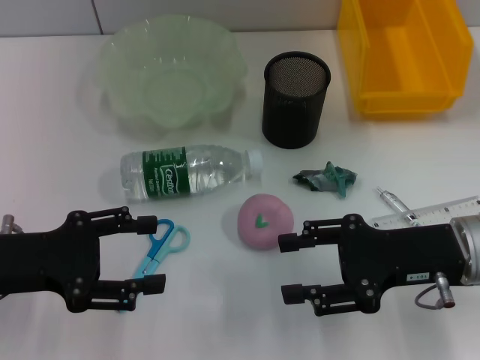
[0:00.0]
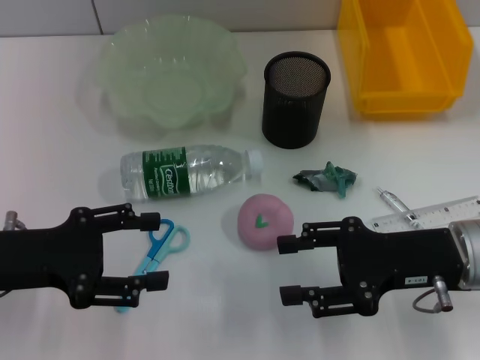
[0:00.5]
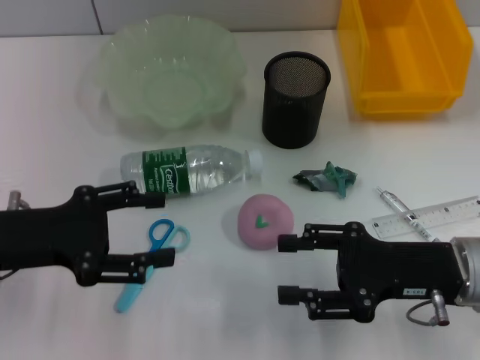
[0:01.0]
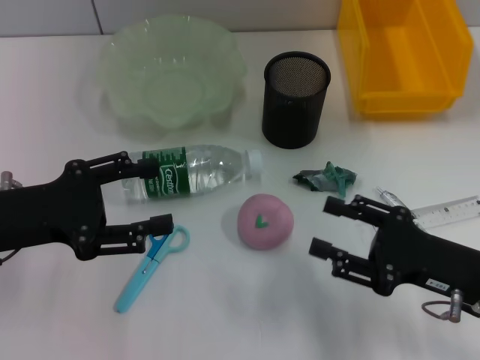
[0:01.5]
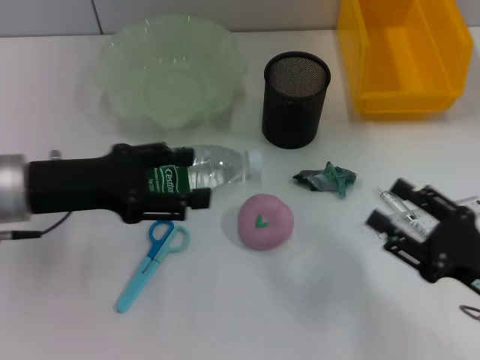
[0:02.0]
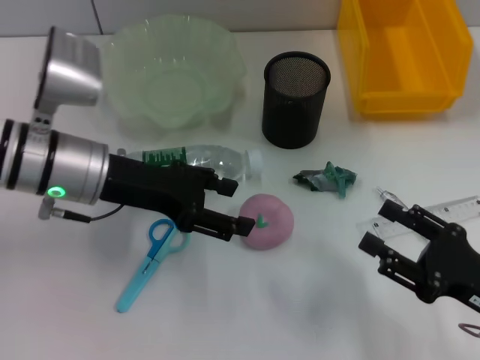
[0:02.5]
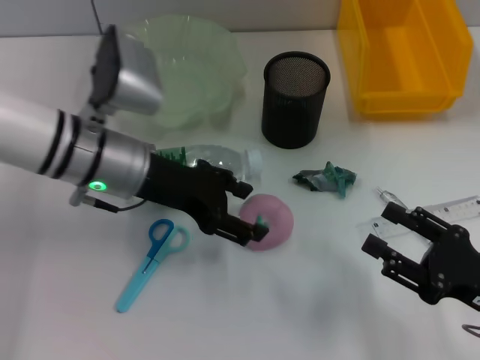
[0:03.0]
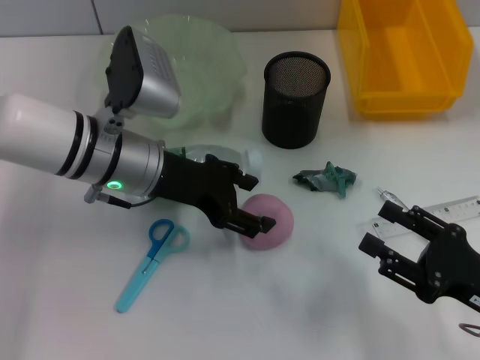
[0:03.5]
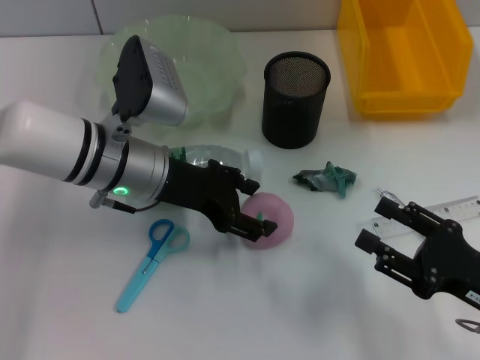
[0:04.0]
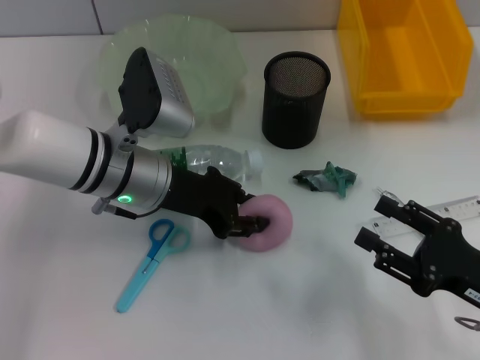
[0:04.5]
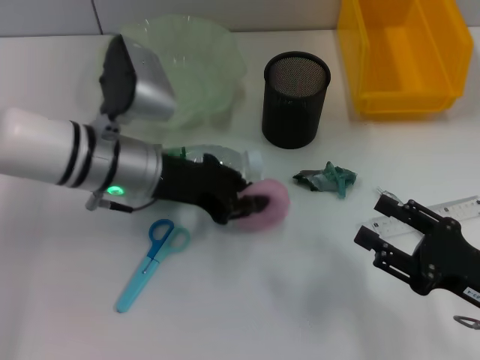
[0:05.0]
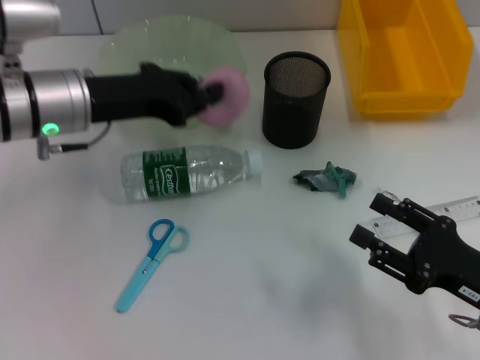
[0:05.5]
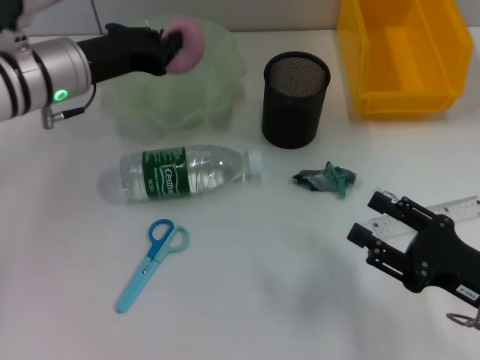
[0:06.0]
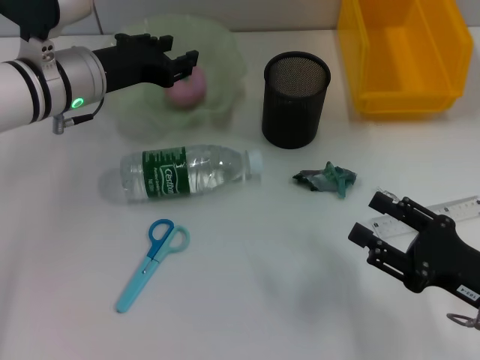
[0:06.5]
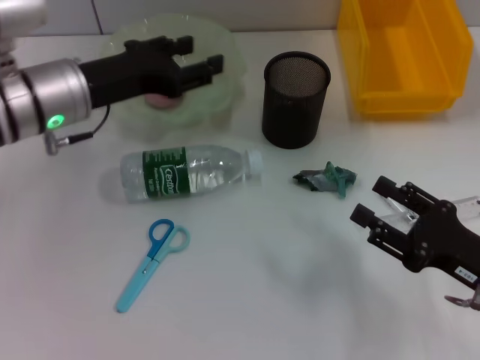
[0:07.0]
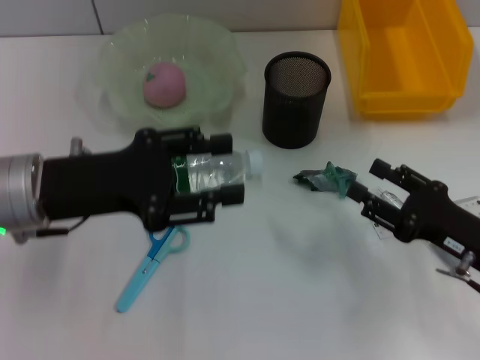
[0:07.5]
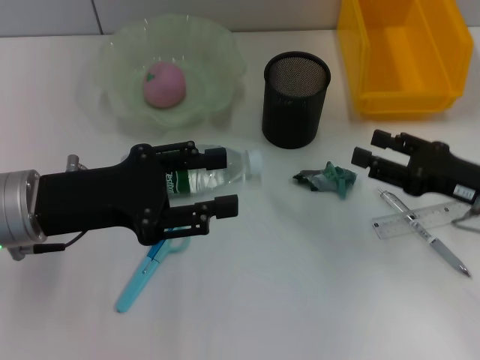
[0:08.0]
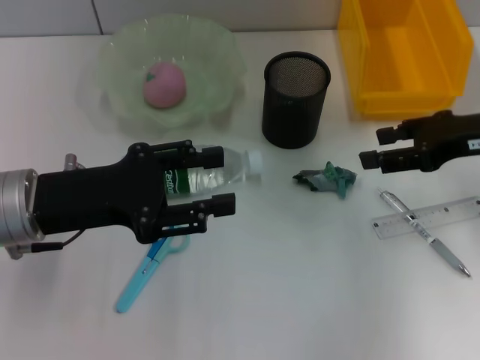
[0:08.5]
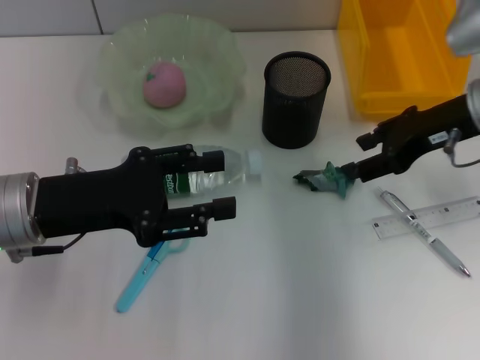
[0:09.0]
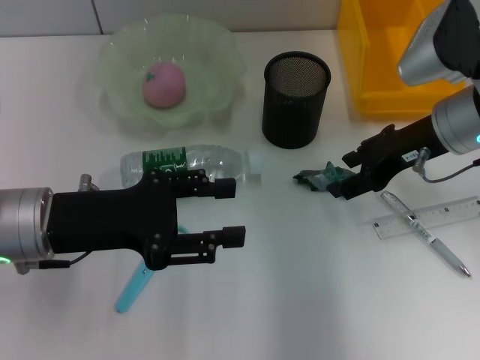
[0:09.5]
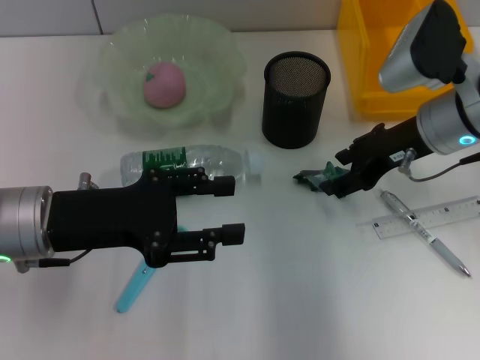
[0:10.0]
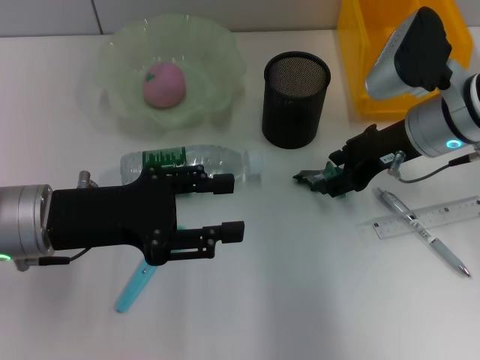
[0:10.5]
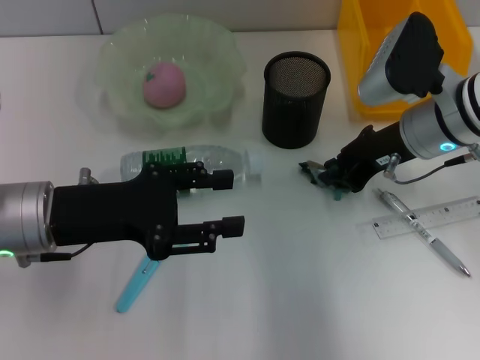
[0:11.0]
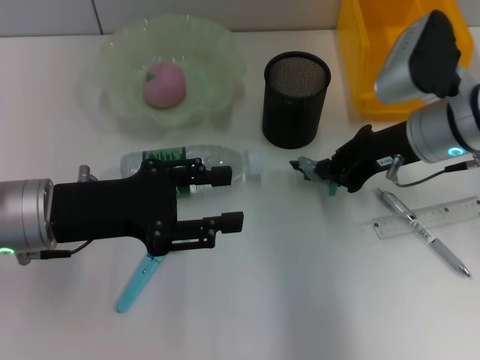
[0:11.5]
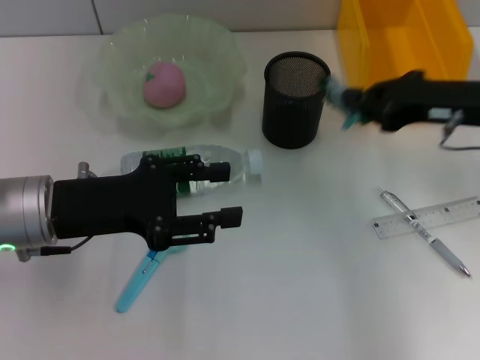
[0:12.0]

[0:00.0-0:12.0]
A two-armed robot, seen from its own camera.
Step, 0:00.0 to 0:04.5: Grab the peach with the left hand.
Step, 0:05.0 to 0:06.5: Place the peach into the fruit bowl with the left hand.
Step, 0:07.0 to 0:11.0: Grab the plastic with the right hand.
0:00.0 to 0:02.0: The right gripper moves backward, downward and to the right, some 10 cm, while the left gripper heads forward, covering about 5 cm.
0:02.0 to 0:04.0: The left gripper travels to the right and forward by roughly 15 cm.
0:04.0 to 0:06.0: The left gripper travels to the left and forward by about 10 cm, and closes up.
0:06.0 to 0:08.0: The left gripper travels backward by roughly 15 cm, and opens its fingers; the right gripper is displaced forward by roughly 10 cm.
0:08.0 to 0:10.0: The right gripper travels forward, to the left and upward by about 15 cm.
0:10.0 to 0:12.0: The right gripper ends up approximately 5 cm from where it was, and closes.

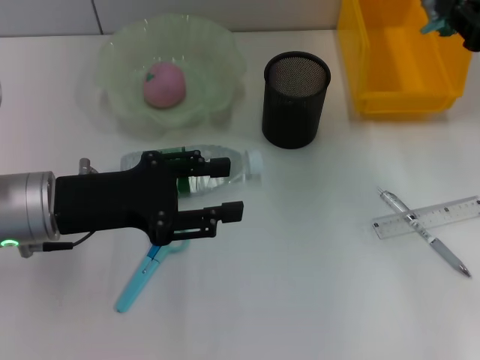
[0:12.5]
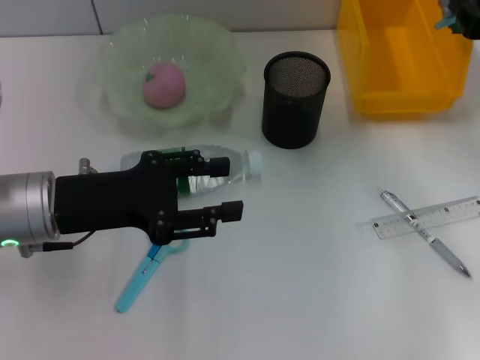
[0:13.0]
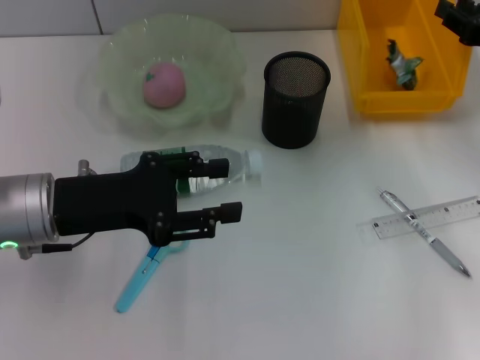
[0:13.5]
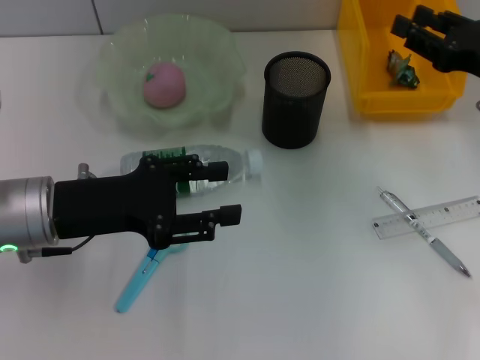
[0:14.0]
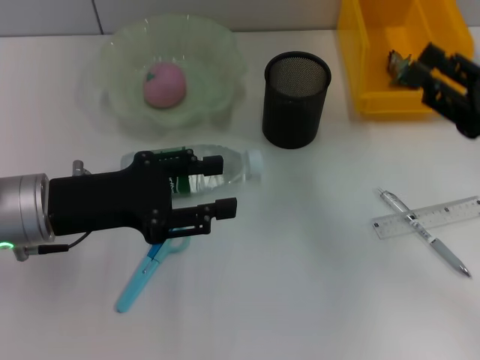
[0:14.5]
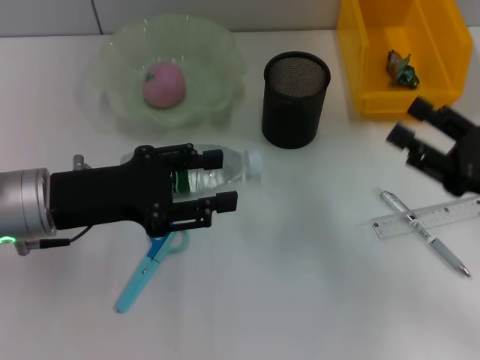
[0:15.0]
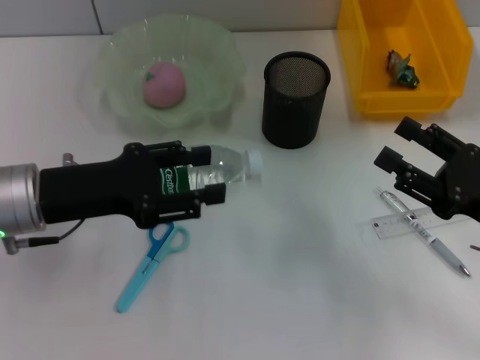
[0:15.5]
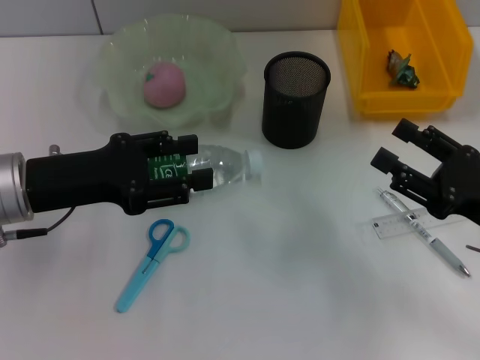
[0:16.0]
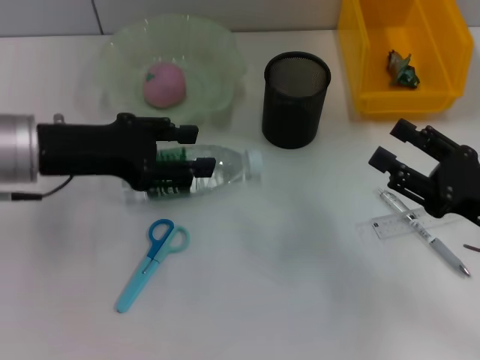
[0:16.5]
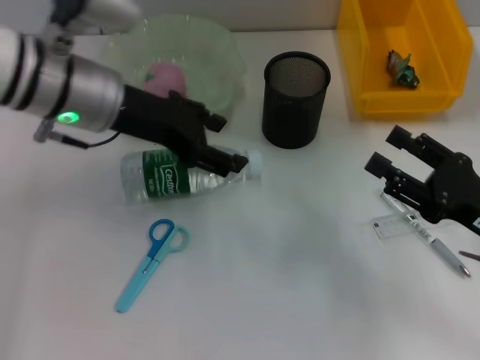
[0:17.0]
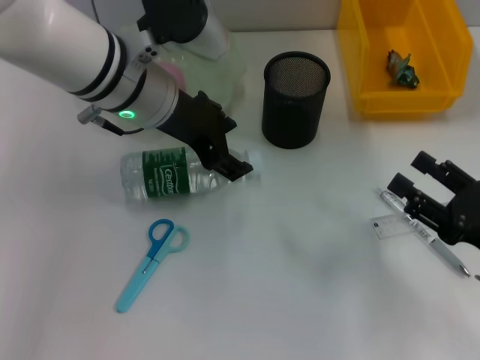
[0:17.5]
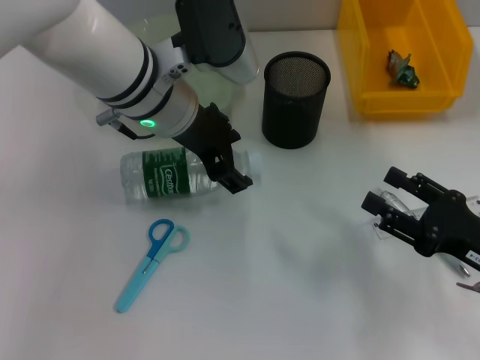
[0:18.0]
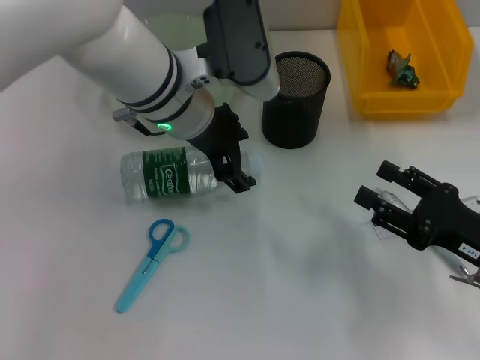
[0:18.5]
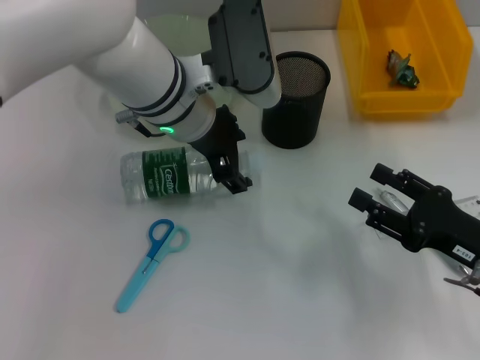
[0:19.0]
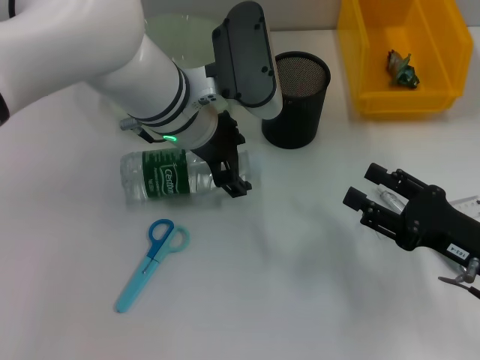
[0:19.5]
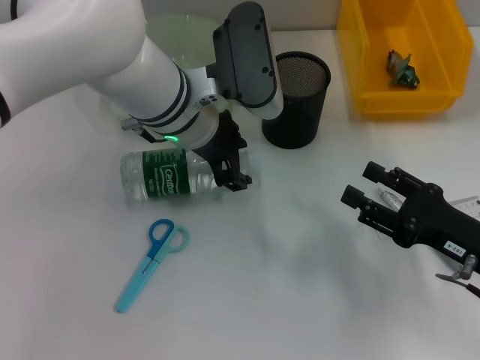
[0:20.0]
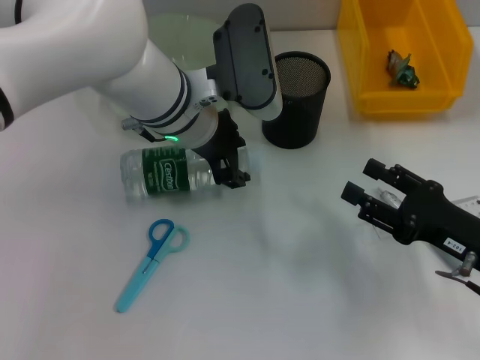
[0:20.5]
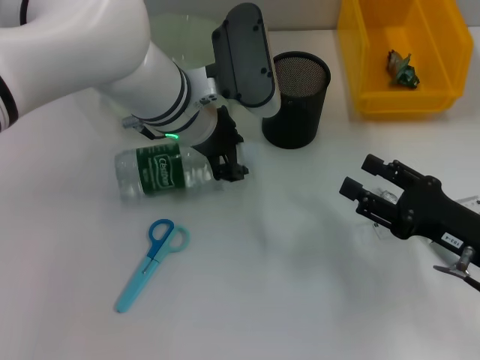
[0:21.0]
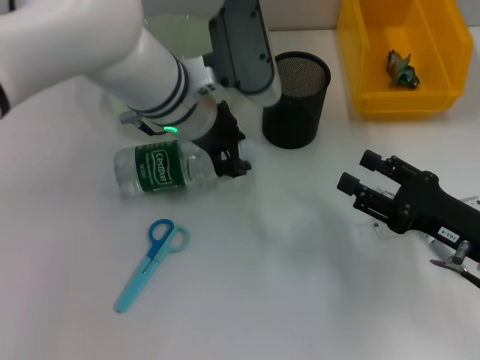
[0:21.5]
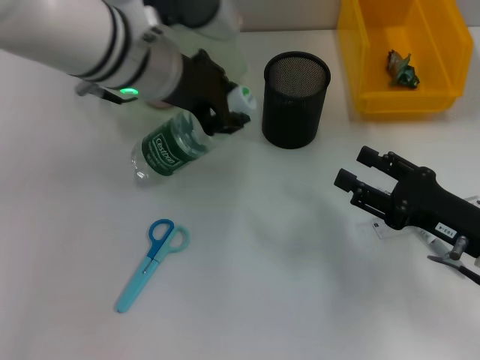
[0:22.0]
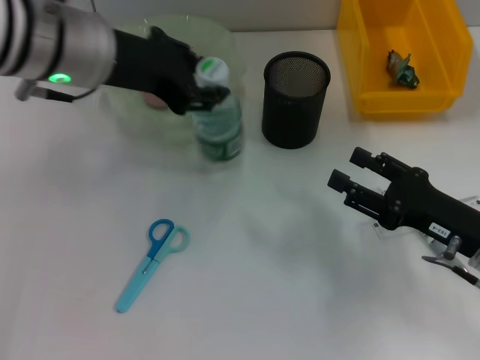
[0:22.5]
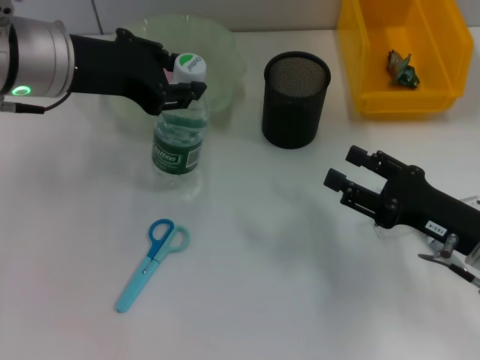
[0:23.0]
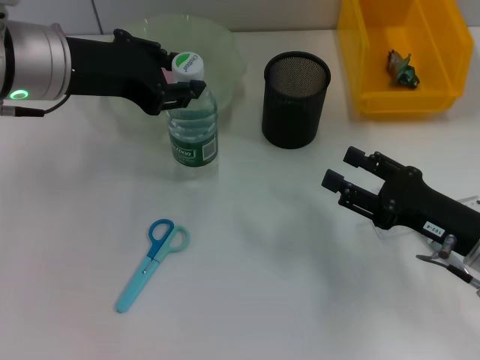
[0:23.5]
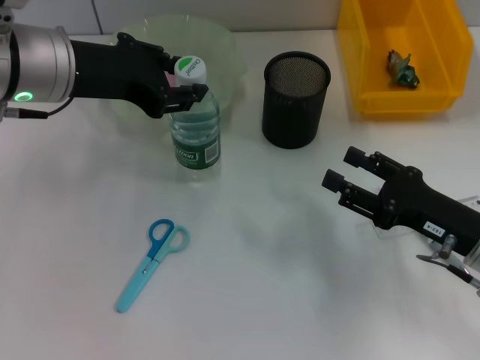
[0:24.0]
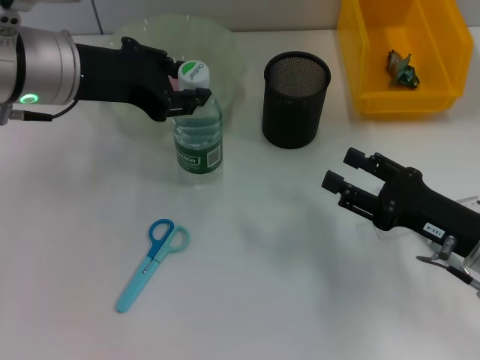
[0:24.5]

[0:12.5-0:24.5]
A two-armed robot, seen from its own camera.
Step, 0:14.0 to 0:21.0: Grab the water bottle with the left hand.
0:12.5 to 0:14.5: The right gripper goes approximately 10 cm backward and downward, and opens up.
0:14.5 to 0:16.5: The left gripper shifts by approximately 5 cm; the right gripper changes place by roughly 5 cm.
0:16.5 to 0:18.5: The left gripper is displaced to the right by approximately 15 cm.
0:18.5 to 0:20.5: The grippers move only a little.
0:20.5 to 0:22.5: The left gripper is displaced upward and to the left by about 10 cm.
0:22.5 to 0:24.5: The grippers make only small movements.

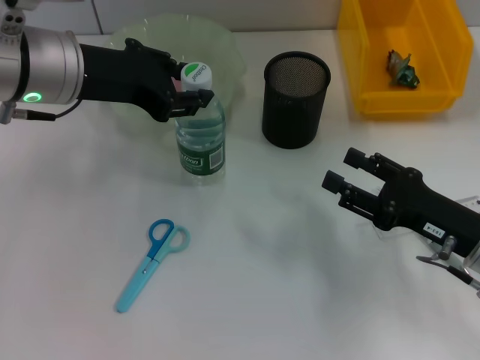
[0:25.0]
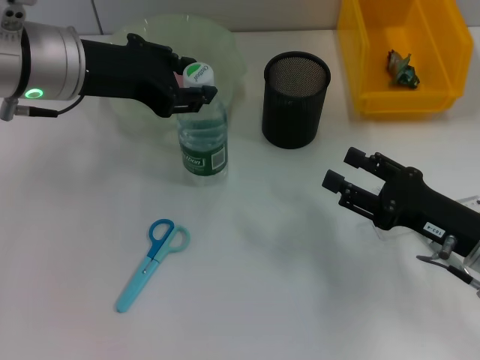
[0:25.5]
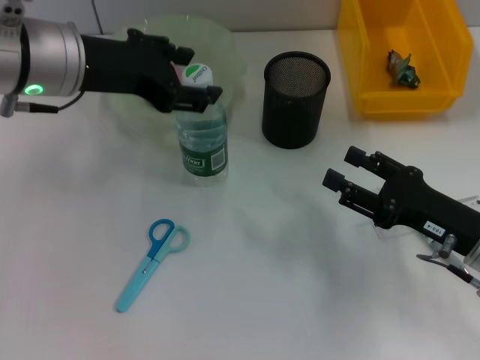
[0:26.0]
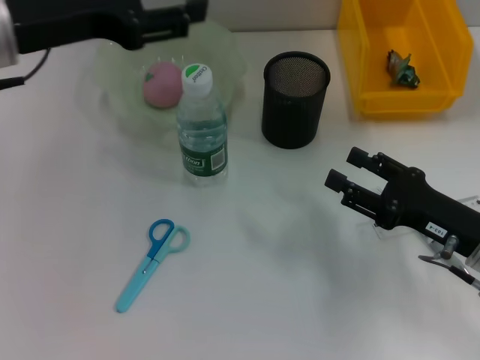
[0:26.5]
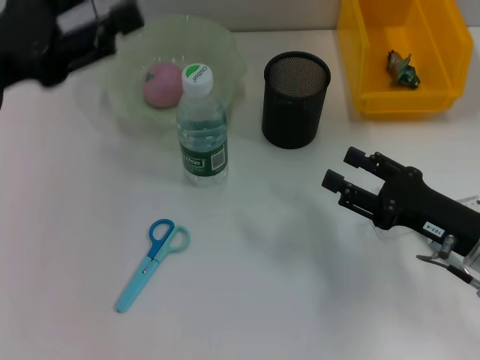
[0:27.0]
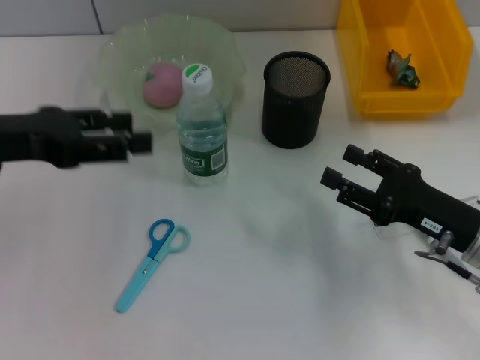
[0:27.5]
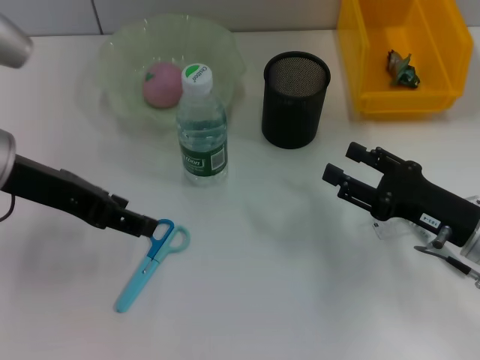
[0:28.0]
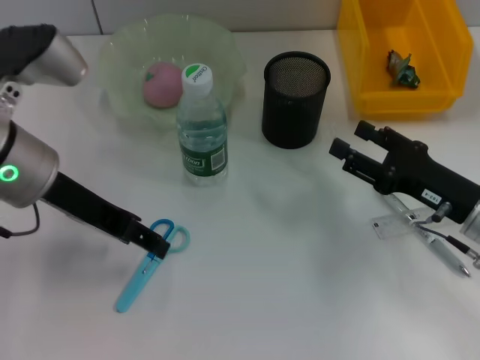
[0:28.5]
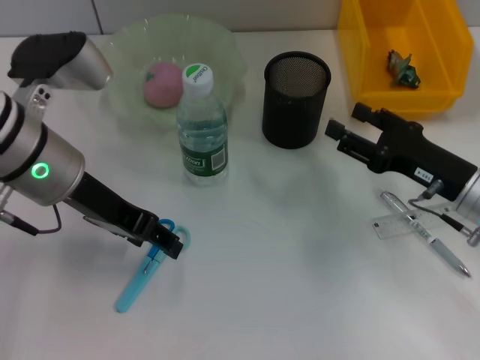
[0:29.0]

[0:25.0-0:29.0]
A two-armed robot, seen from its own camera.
0:25.0 to 0:27.0: The left gripper travels to the left and backward by roughly 10 cm.
0:27.0 to 0:29.0: The left gripper is displaced to the right by about 10 cm.
